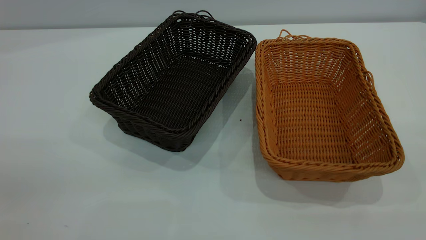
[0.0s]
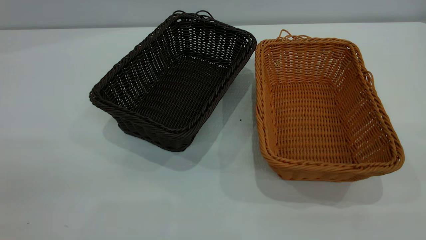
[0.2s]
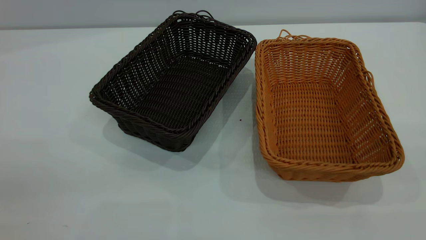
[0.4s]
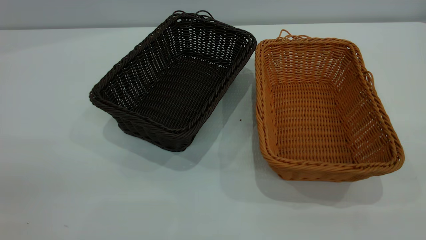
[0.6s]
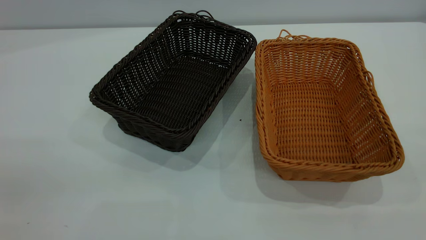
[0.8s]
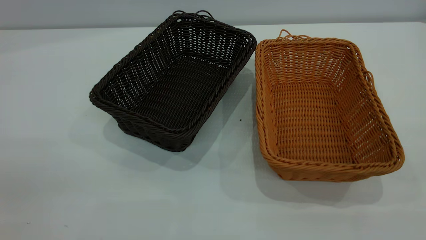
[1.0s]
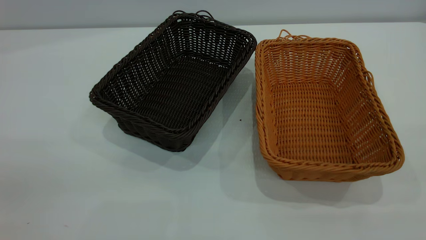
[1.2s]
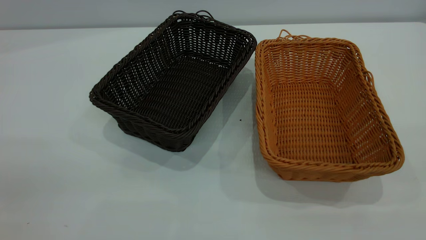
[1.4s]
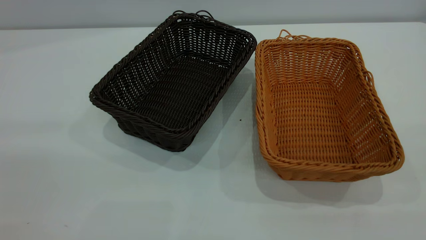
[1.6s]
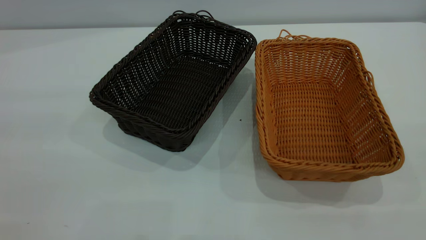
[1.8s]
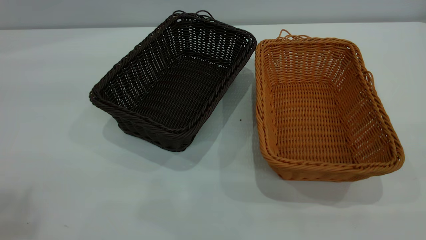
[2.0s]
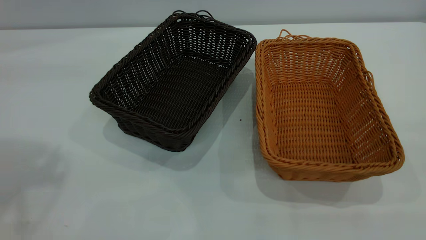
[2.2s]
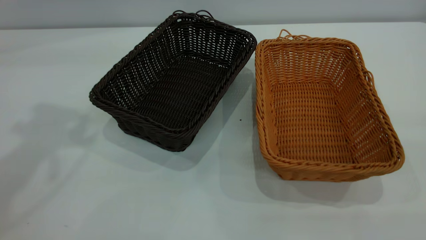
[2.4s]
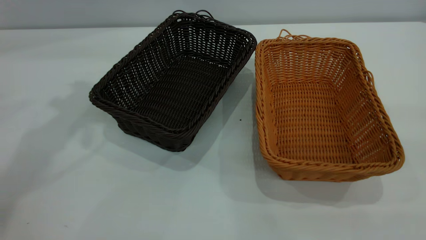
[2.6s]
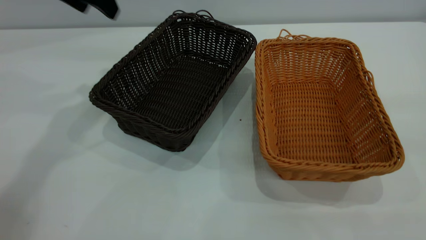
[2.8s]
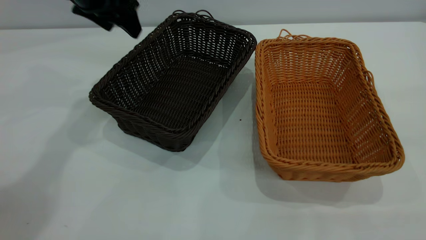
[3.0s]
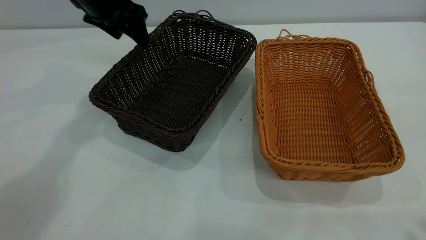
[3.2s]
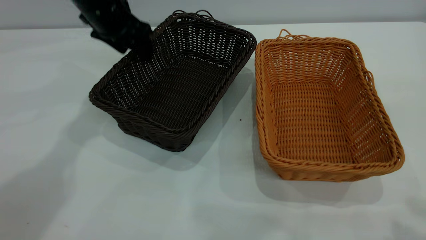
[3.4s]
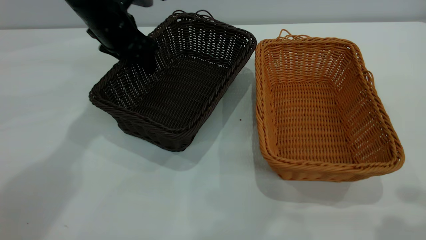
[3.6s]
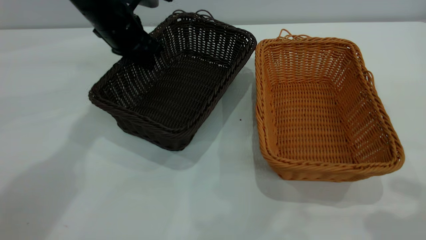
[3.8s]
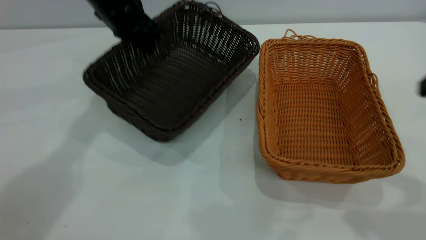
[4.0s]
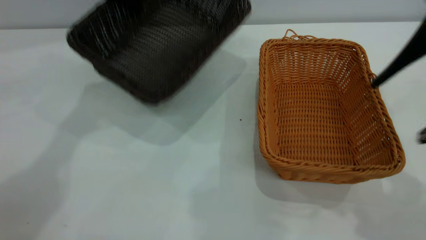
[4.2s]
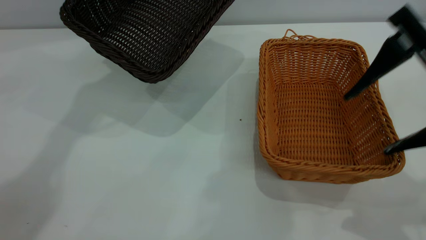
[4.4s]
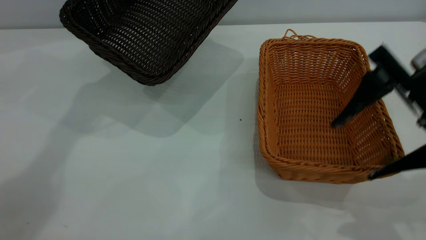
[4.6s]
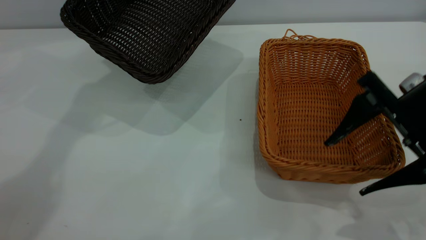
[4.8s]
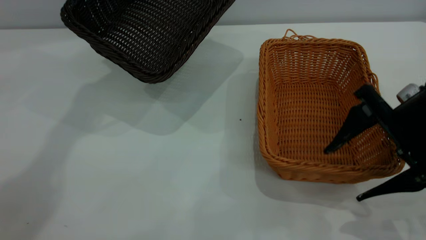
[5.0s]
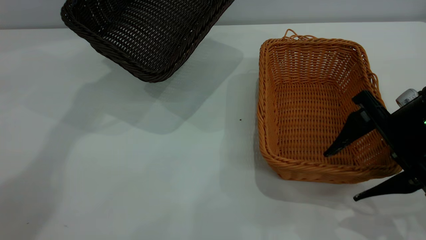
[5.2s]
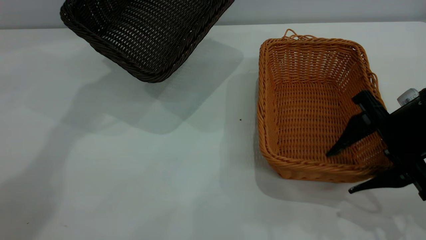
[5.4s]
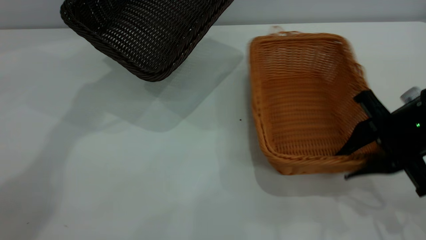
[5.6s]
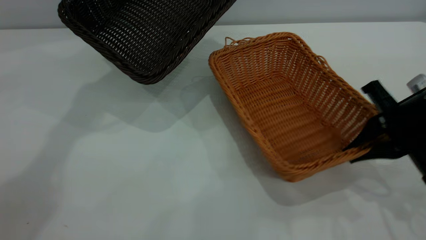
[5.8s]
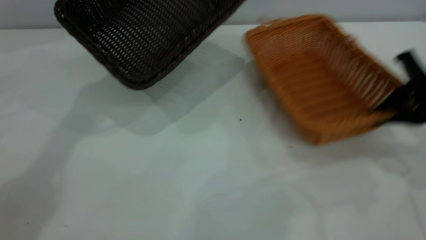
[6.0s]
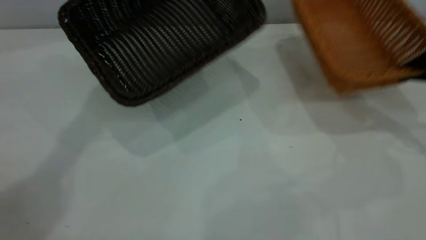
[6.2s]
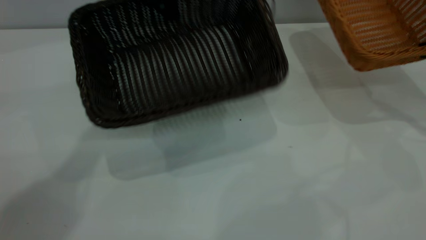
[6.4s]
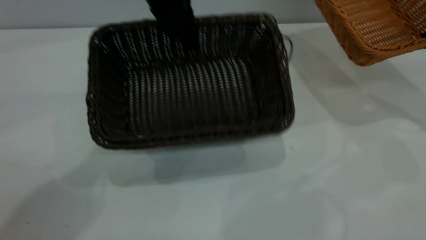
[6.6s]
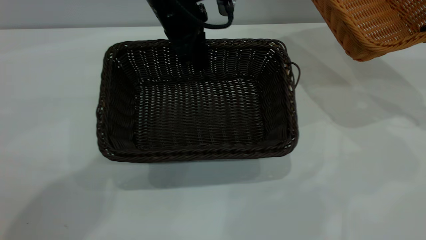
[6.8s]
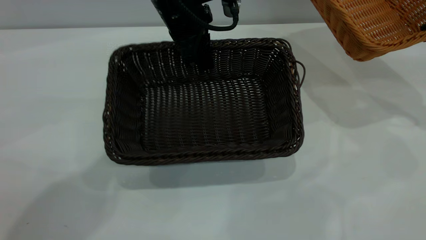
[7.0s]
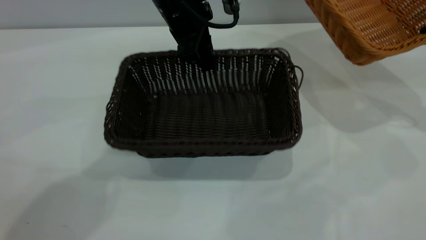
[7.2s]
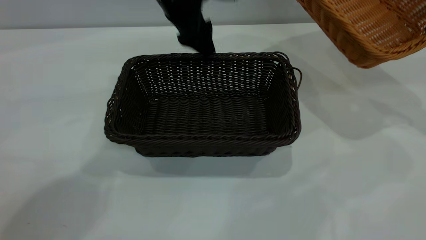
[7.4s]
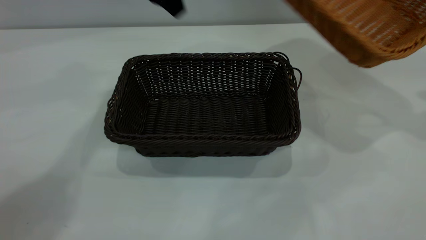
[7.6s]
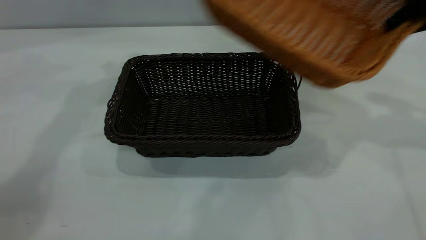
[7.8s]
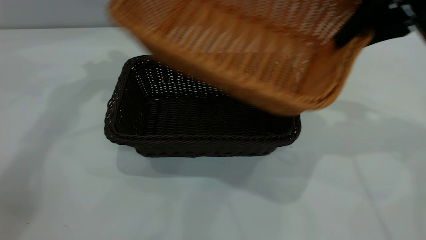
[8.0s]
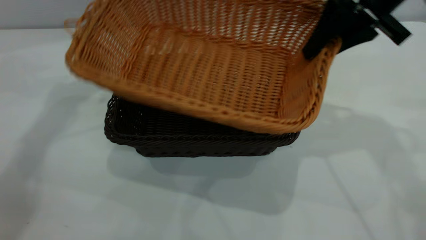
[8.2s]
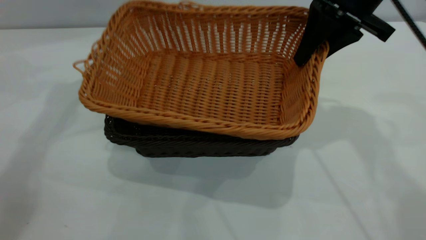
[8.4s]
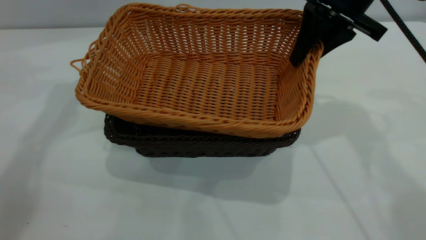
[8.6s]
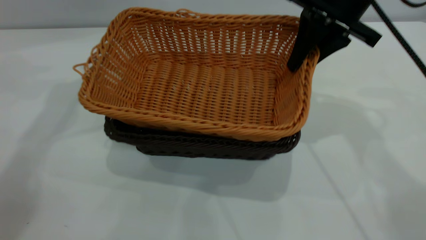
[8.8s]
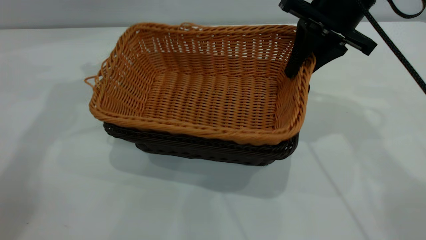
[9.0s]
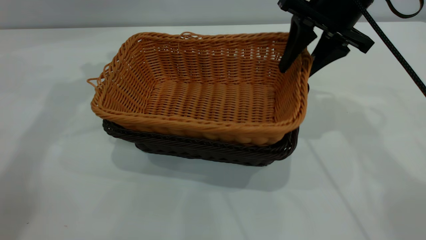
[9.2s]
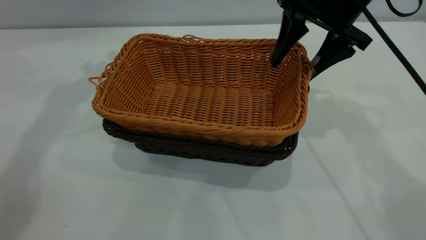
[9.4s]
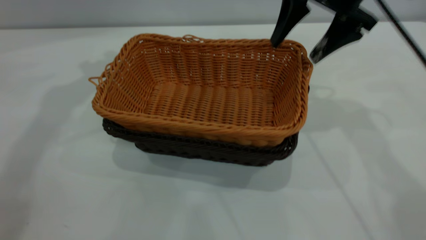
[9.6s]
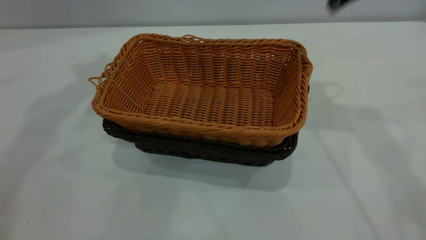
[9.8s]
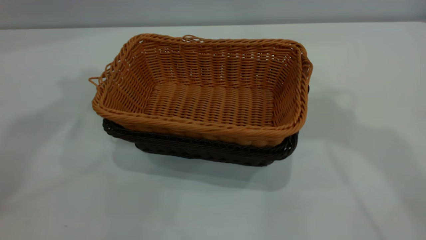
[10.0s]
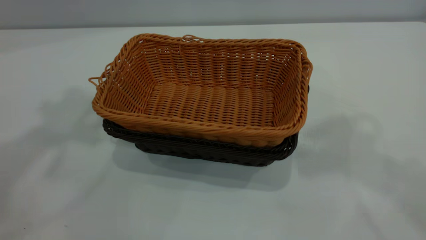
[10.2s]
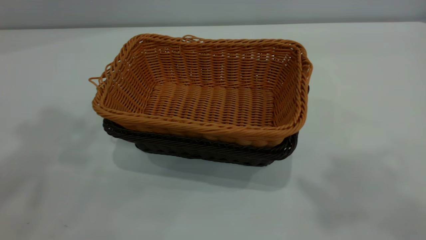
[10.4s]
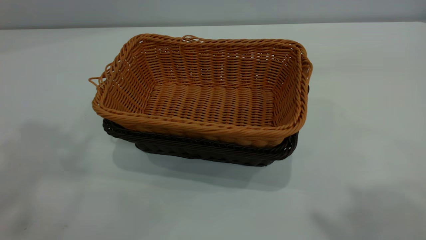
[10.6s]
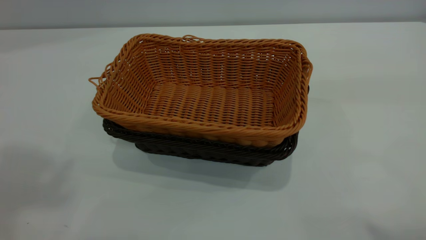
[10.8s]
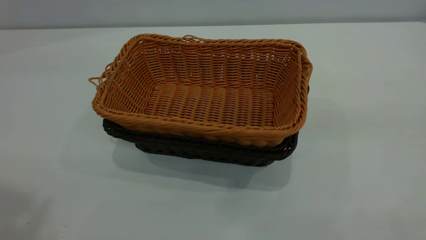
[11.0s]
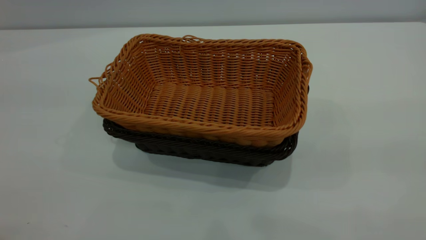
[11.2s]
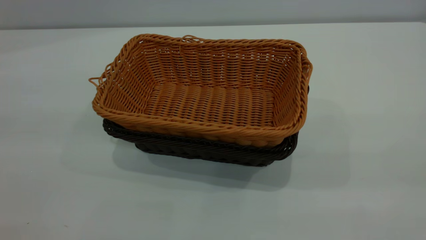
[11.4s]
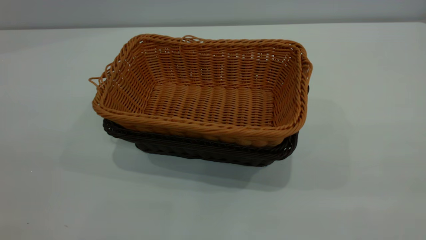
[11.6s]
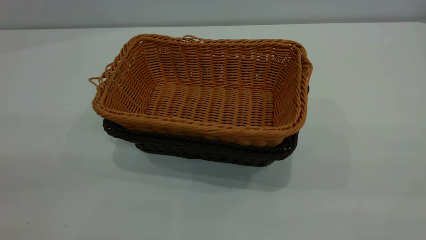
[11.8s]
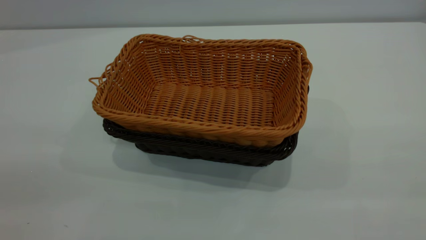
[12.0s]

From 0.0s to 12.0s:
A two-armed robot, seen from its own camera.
Task of the whole recording: the left gripper grasp the black basket and place it in the center of the table, the right gripper grasp the brown basket and place it inside the black one.
Step, from 0.0s to 6.0s: Pick up the light basket with the right gripper.
Step, from 6.4s to 7.4s: Move the dark basket to the center of view.
Step, from 7.6s to 9.6s: Place the light basket on the dark basket.
From 1.6s to 3.0s: The left gripper heads forward, covering approximately 40 cm.
From 3.0s to 4.4s: The right gripper goes roughly 20 cm forward and downward. Meanwhile the left gripper shifts approximately 5 cm upward, and closes its fingers.
From 4.4s to 6.0s: The right gripper shifts roughly 15 cm downward, to the right and forward, and closes up.
From 6.0s to 7.6s: The left gripper reaches approximately 10 cm to the right, then returns, and opens its fingers, while the right gripper goes about 10 cm upward.
From 7.6s to 9.0s: The right gripper goes some 20 cm to the left; the left gripper travels to the left by about 10 cm.
From 9.0s to 10.4s: Both grippers travel together upward and backward, some 35 cm. The right gripper opens its fingers.

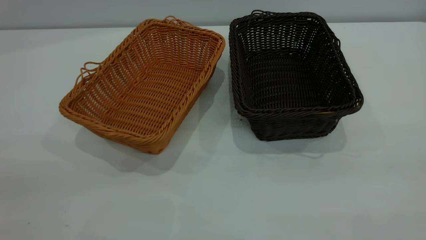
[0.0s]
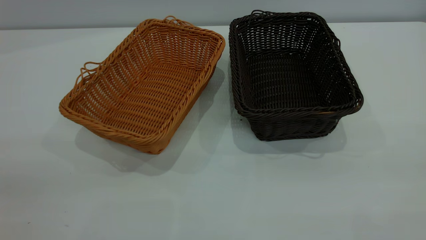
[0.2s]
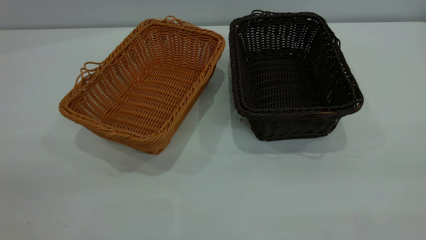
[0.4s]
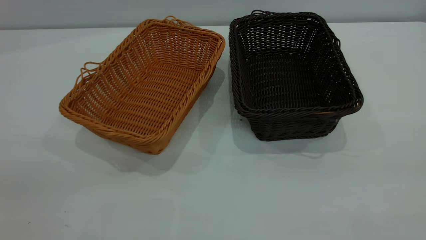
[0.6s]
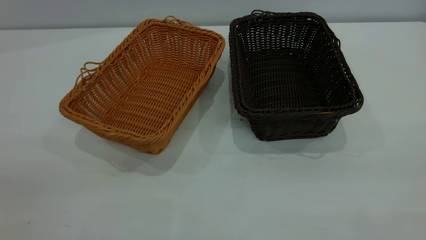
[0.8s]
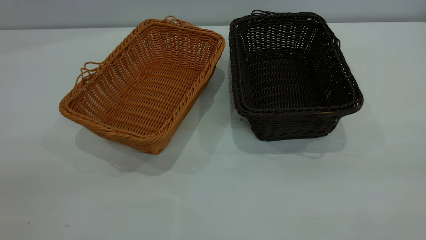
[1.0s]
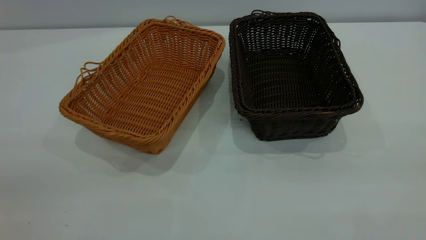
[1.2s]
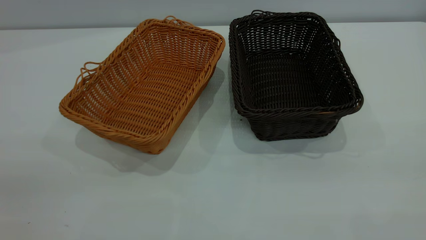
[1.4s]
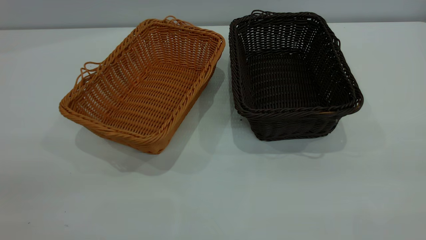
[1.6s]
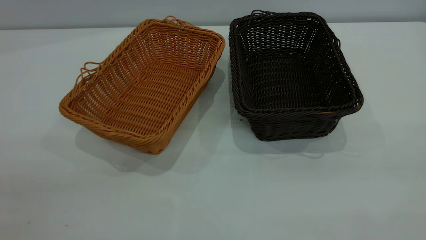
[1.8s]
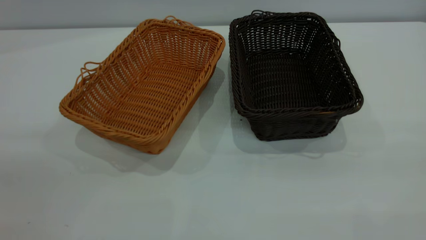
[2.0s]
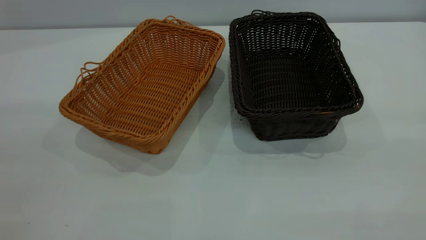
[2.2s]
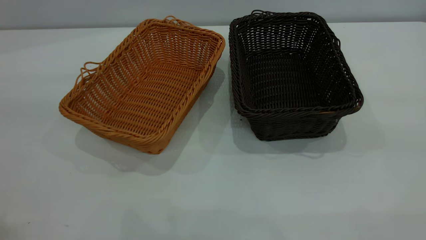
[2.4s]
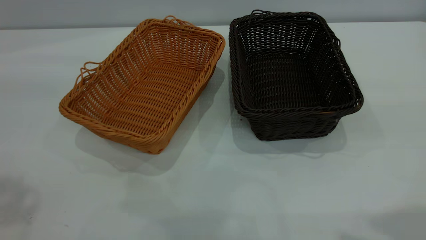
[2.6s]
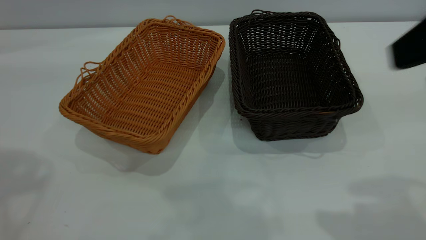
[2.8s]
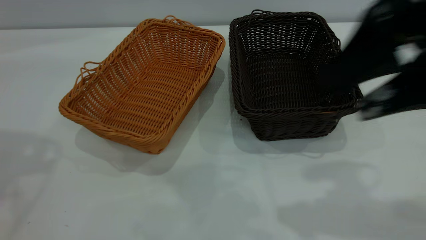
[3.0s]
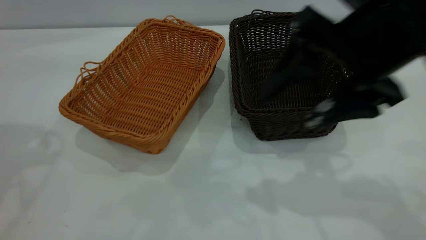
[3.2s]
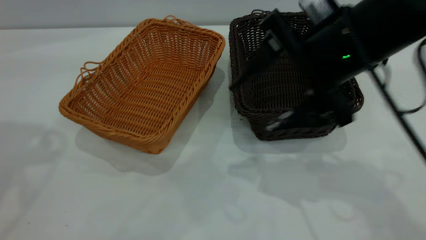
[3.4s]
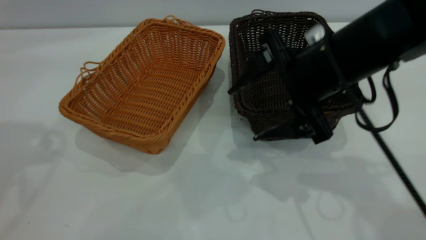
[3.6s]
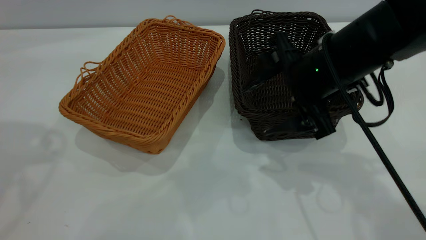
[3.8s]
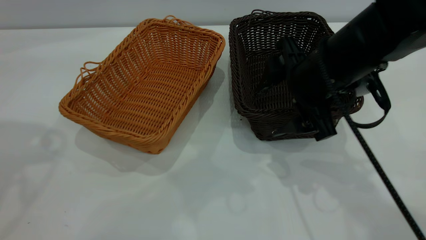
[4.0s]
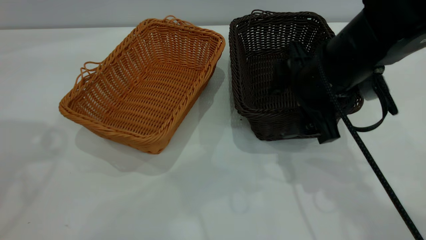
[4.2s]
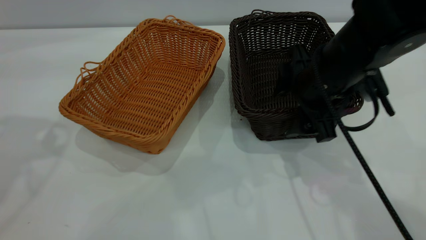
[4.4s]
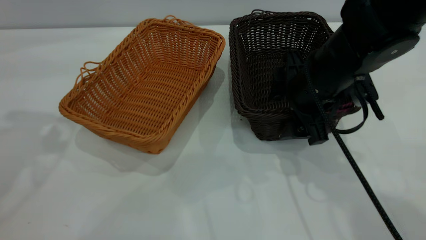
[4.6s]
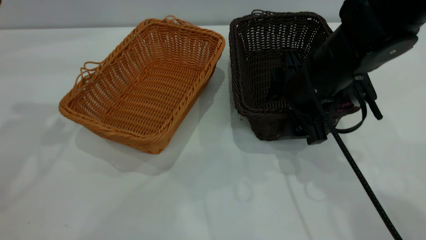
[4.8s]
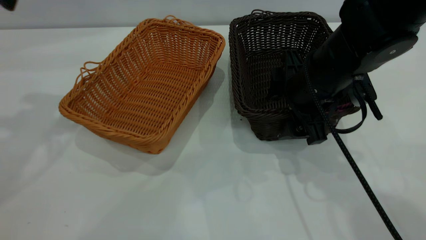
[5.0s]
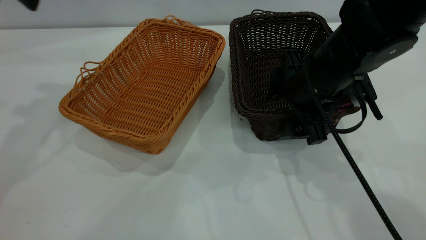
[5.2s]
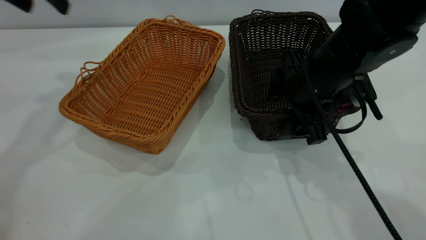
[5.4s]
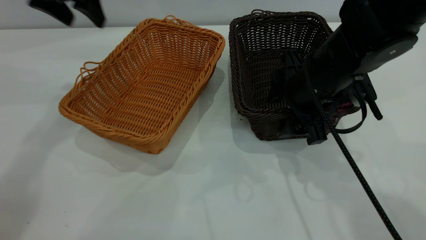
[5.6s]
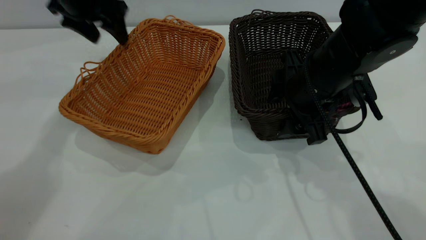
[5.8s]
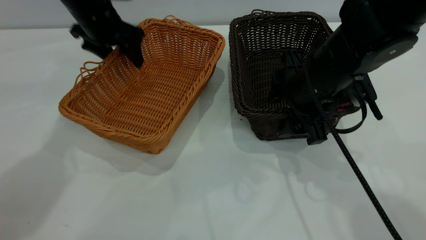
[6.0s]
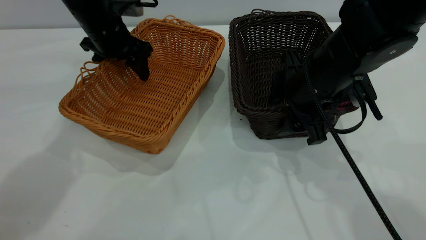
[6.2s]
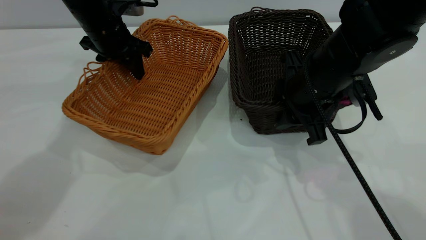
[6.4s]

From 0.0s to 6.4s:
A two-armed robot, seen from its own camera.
Task of the whole recording: the left gripper grasp the brown basket and place it in the center of the table, the right gripper grasp the black basket and place it inside the brown one.
From 0.0s to 1.6s: Both grippers stay put.
From 1.6s to 3.2s: The right gripper goes approximately 30 cm forward, to the left and downward, and opens its fingers.
From 3.2s to 4.8s: The right gripper heads downward and forward, covering some 15 cm.
From 4.8s to 6.4s: The right gripper closes, while the left gripper is displaced downward, forward and to the right by about 25 cm, and closes its fingers.
